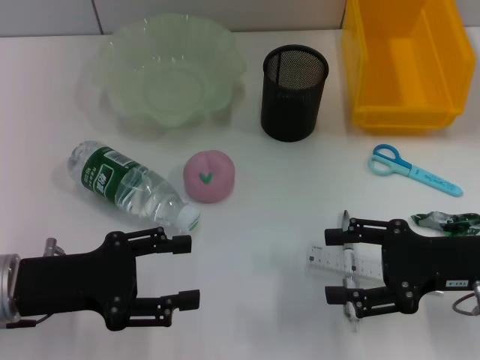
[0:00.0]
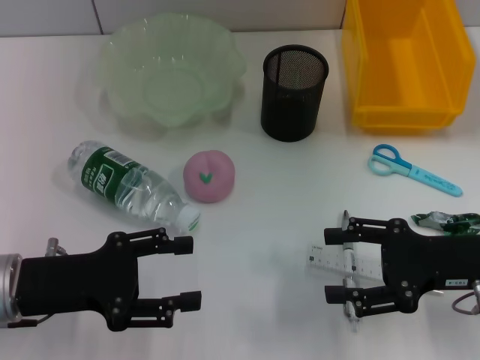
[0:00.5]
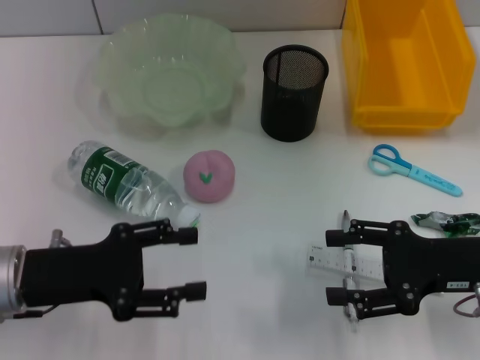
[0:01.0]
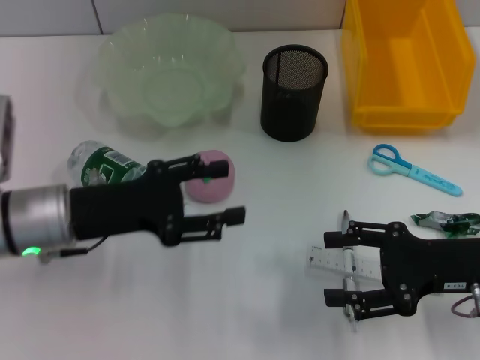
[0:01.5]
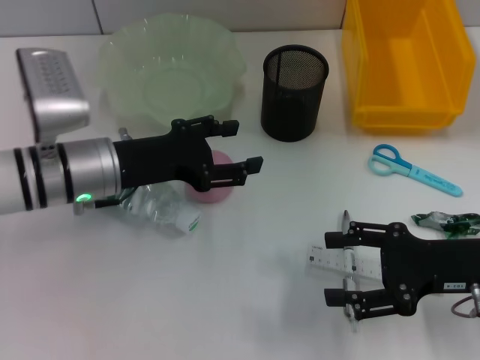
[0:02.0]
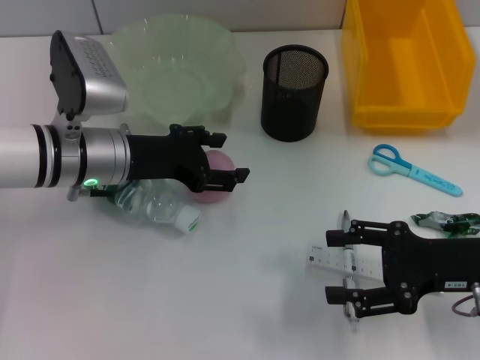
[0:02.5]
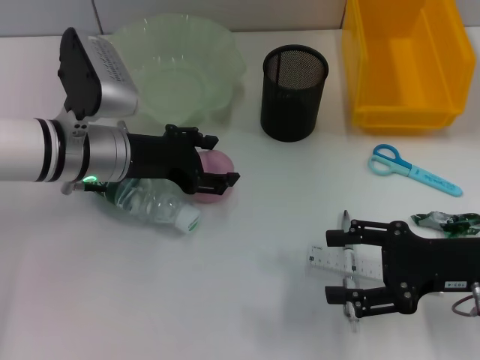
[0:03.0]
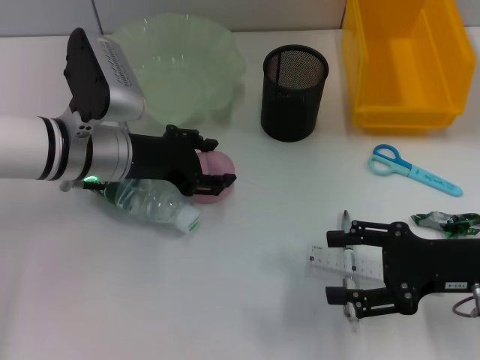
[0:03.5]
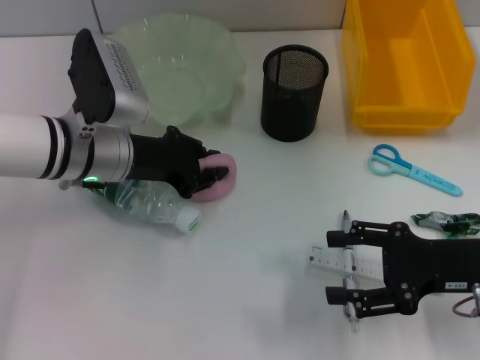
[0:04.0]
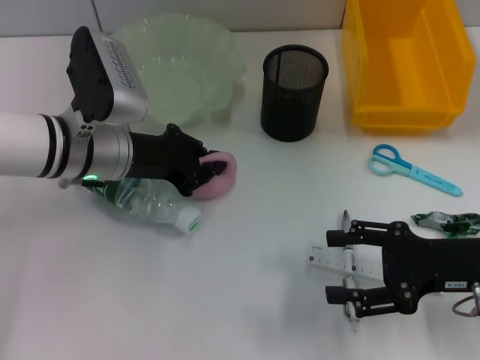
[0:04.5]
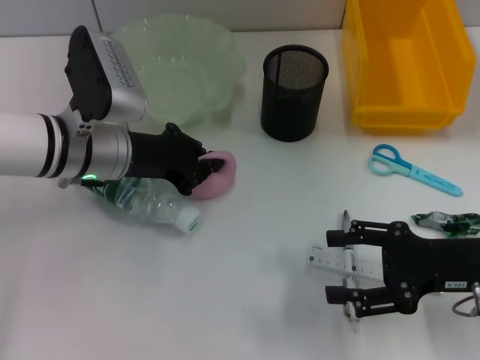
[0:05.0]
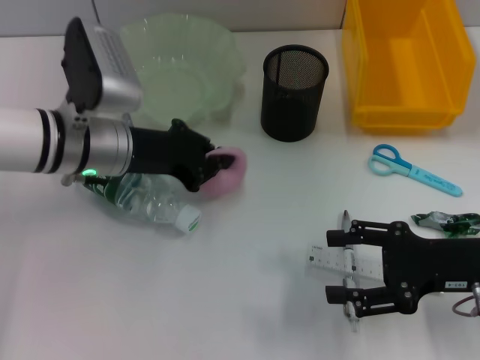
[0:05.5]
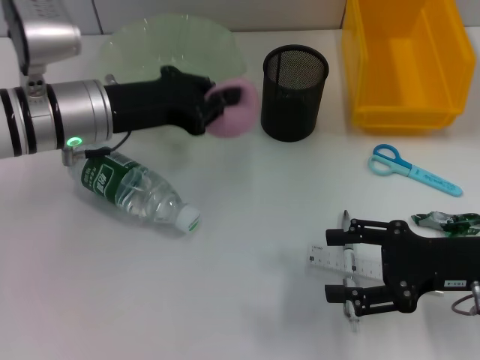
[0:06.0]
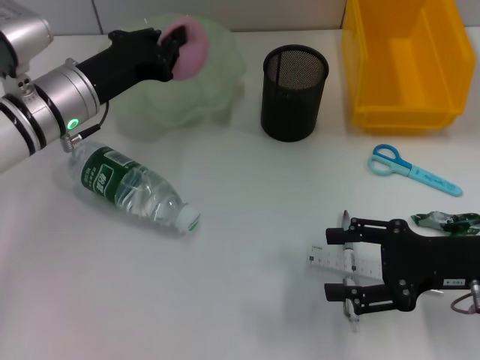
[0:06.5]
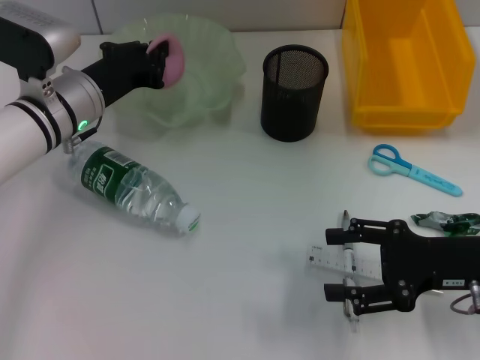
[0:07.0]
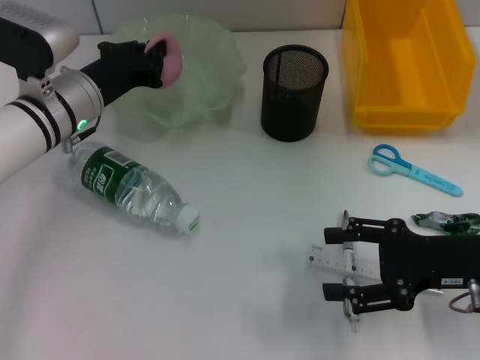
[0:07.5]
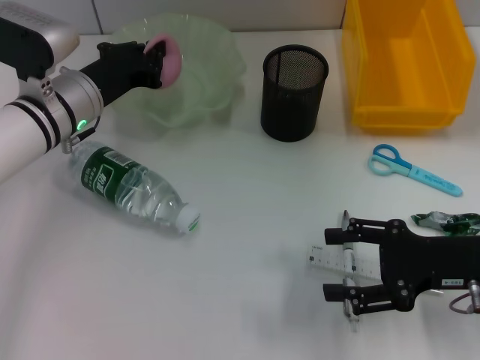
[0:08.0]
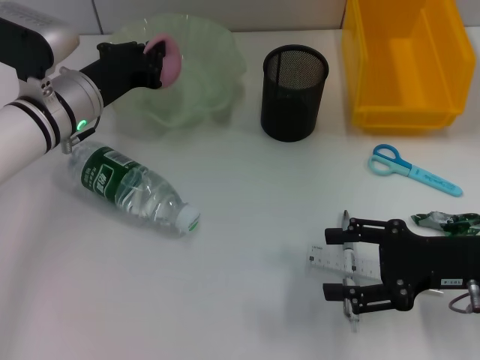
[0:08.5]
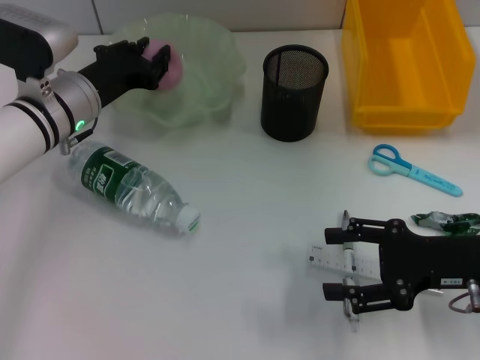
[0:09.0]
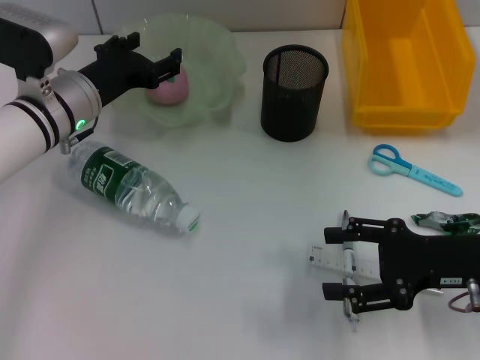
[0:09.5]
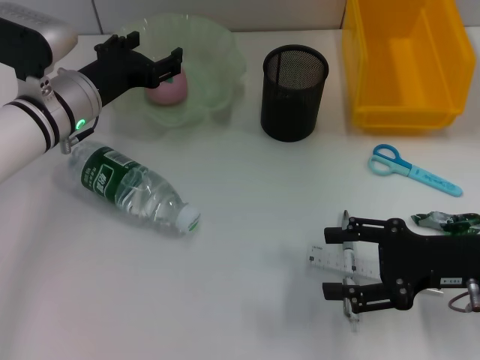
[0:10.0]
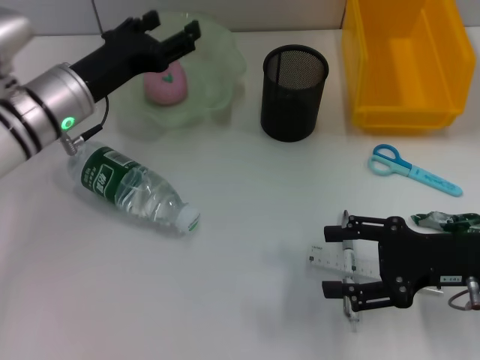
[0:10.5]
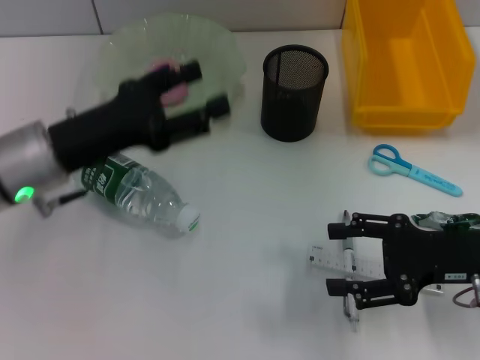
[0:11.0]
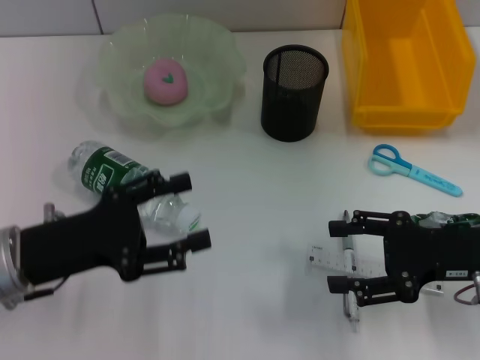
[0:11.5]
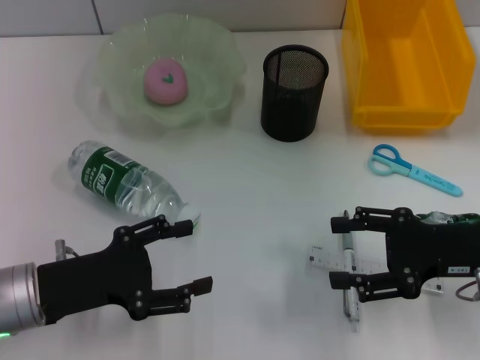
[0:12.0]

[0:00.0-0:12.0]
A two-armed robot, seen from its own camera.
Step, 0:00.0 to 0:04.0: Grab the peach with the left hand.
Step, 0:04.5 to 0:09.5: Place the peach into the fruit bowl with the left hand.
0:00.0 to 0:02.0: The left gripper shifts approximately 15 cm forward and to the right.
0:04.0 to 0:06.0: The left gripper closes.
0:06.0 to 0:08.0: The left gripper ends up some 5 cm from where it was.
0:08.0 to 0:10.0: The left gripper opens up.
0:10.0 to 0:12.0: The left gripper goes roughly 20 cm backward.

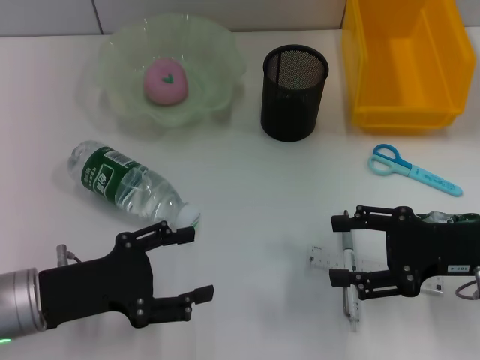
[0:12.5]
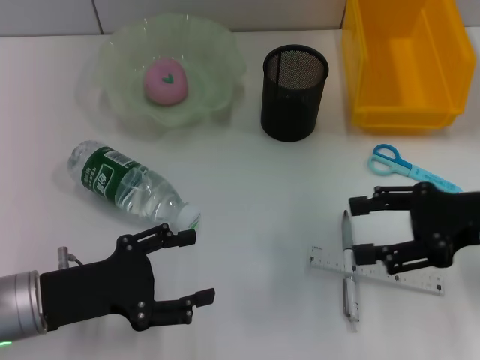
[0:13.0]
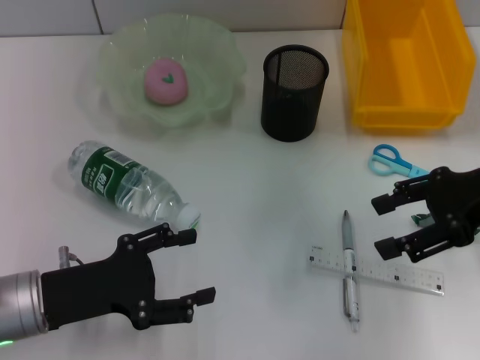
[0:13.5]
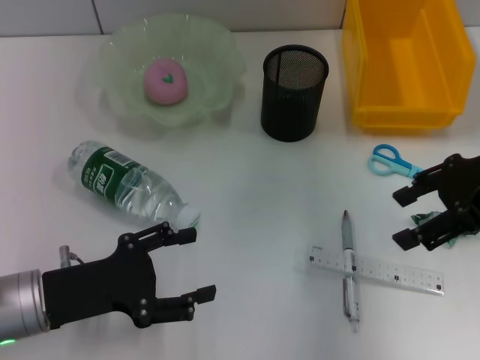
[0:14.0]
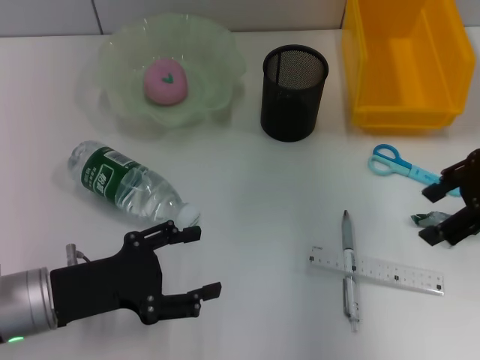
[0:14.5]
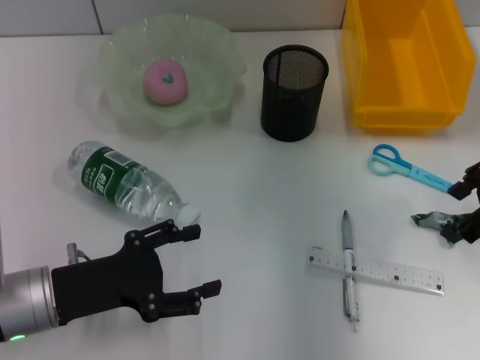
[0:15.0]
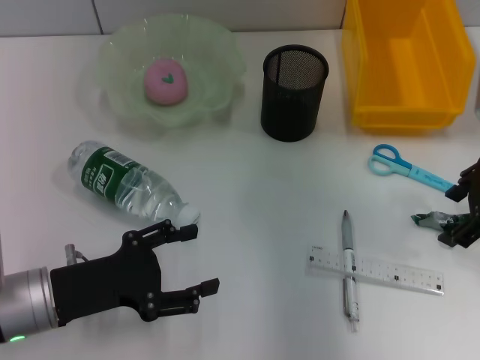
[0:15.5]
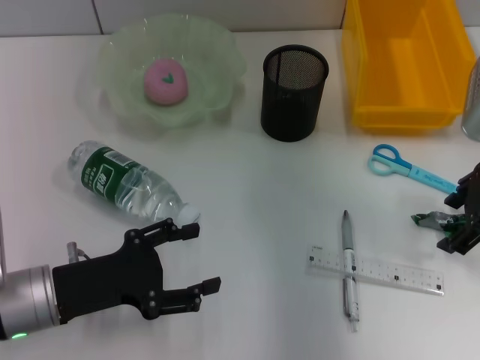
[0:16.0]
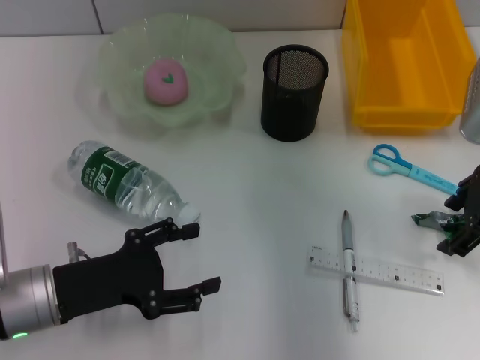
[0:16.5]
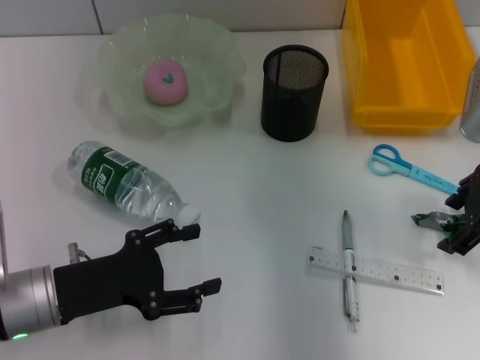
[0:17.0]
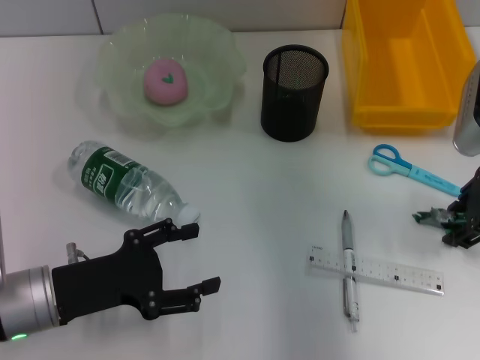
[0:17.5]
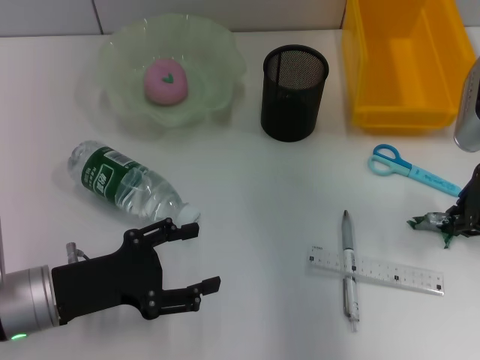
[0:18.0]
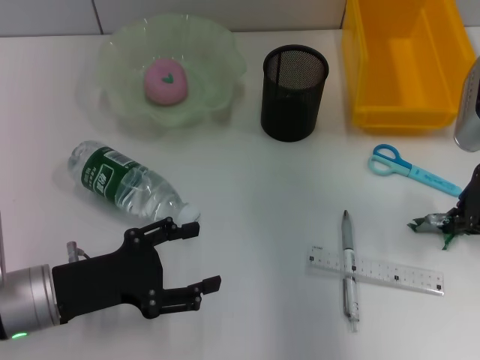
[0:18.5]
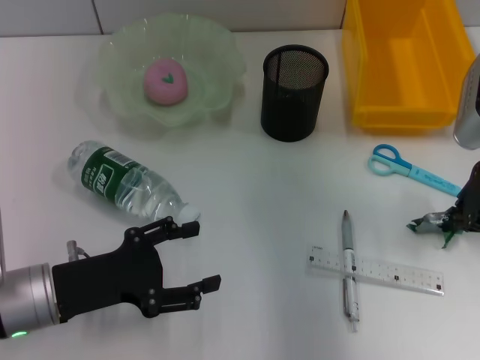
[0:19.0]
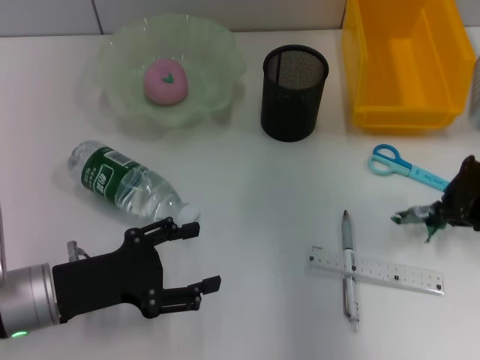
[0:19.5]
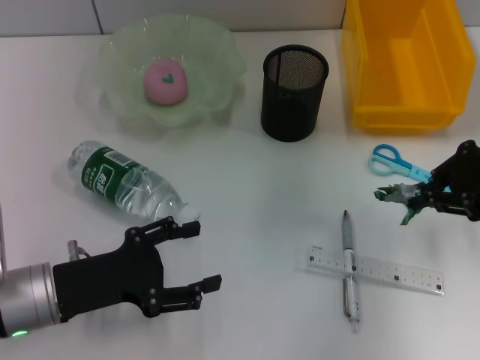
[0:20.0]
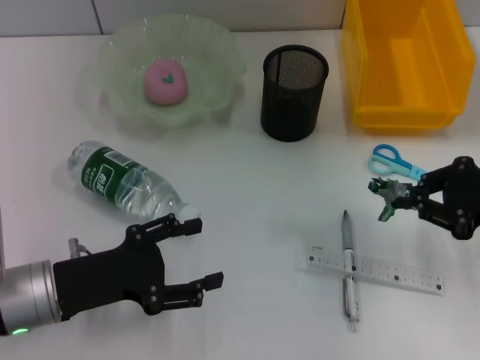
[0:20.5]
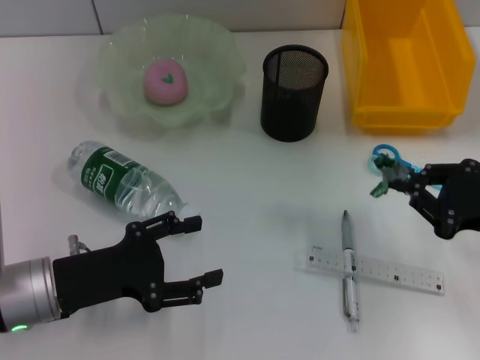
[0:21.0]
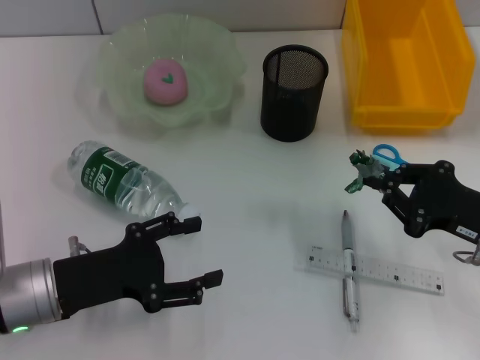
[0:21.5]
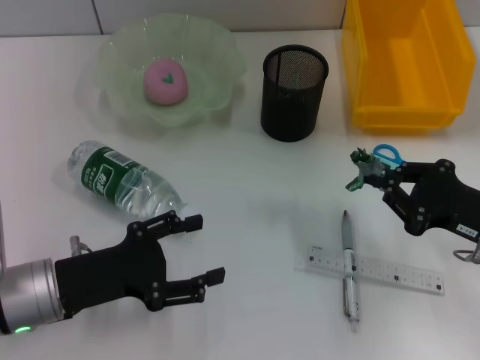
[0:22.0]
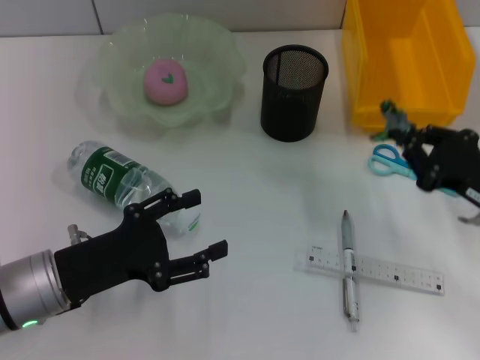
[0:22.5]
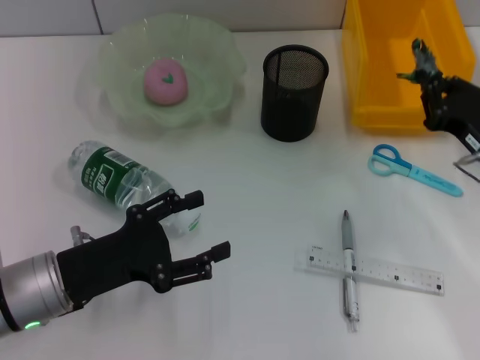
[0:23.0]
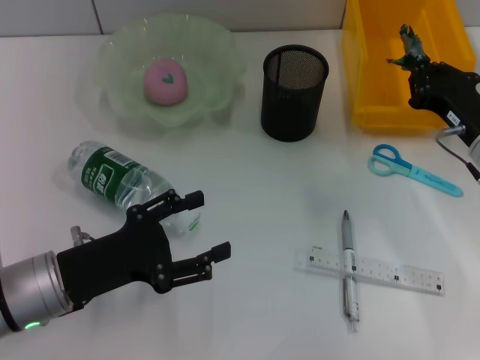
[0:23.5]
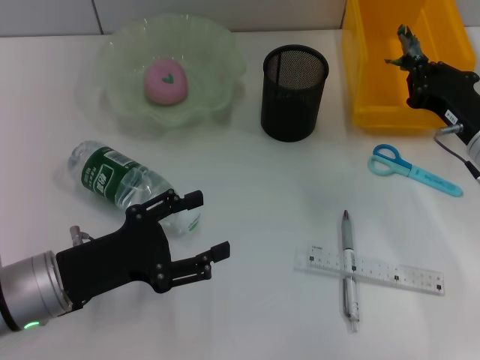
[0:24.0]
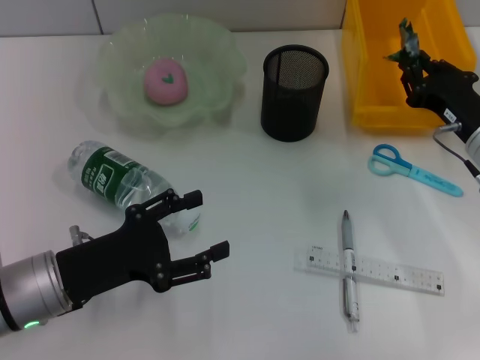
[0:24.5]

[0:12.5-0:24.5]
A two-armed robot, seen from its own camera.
Step, 0:12.5 to 0:18.5: Grab the plastic with the right hand.
0:12.5 to 0:14.5: The right gripper travels upward and forward by roughly 15 cm.
0:14.5 to 0:16.5: The grippers stay close to where they were, moving slightly.
0:16.5 to 0:18.5: The right gripper closes up.
0:18.5 to 0:20.5: The right gripper goes roughly 10 cm backward and to the right.
0:20.5 to 0:22.5: The right gripper is displaced downward by roughly 5 cm.
0:22.5 to 0:24.5: The right gripper moves forward, about 10 cm.

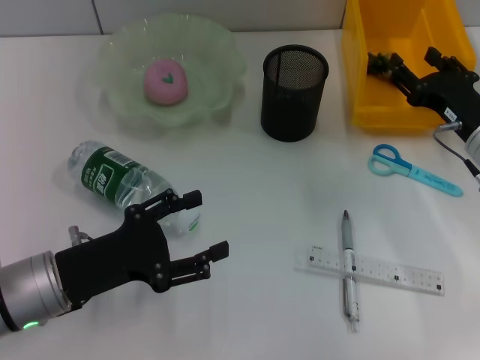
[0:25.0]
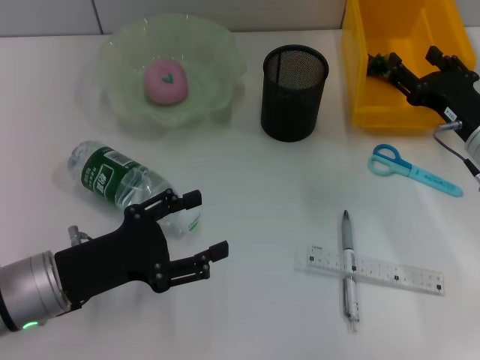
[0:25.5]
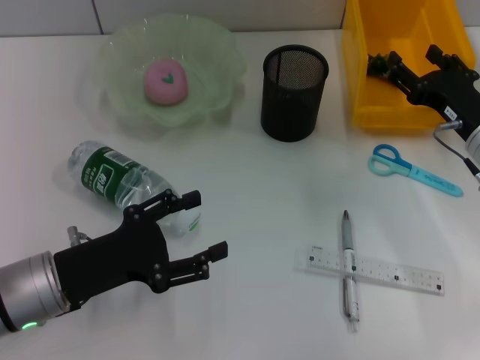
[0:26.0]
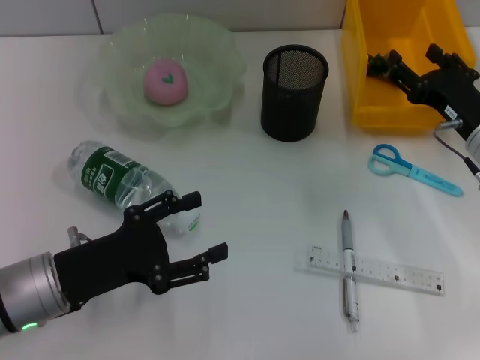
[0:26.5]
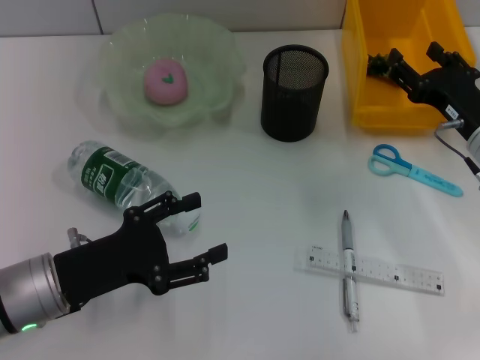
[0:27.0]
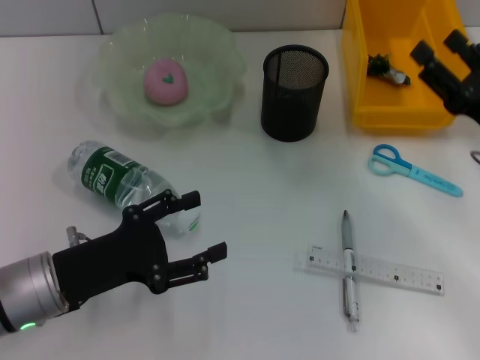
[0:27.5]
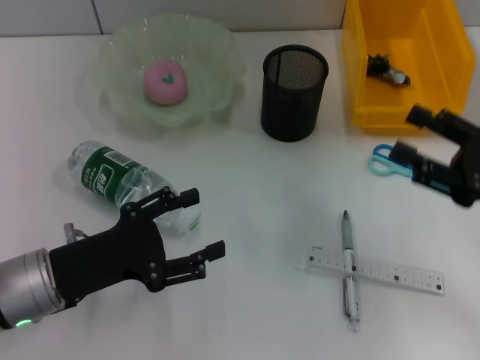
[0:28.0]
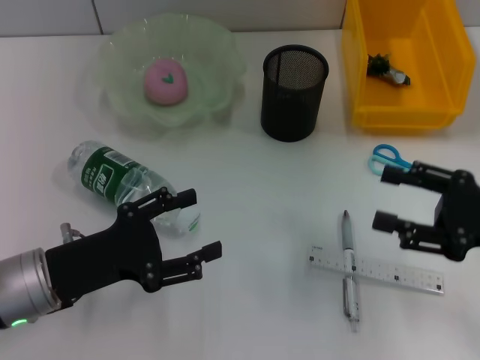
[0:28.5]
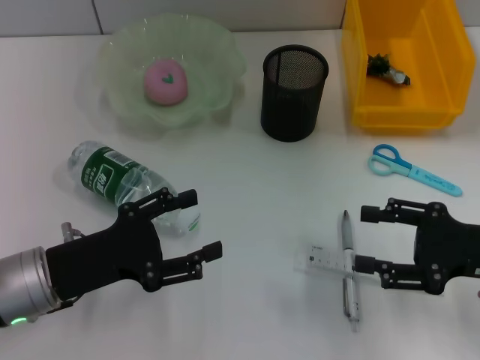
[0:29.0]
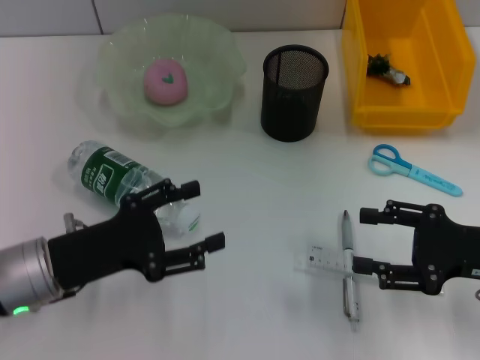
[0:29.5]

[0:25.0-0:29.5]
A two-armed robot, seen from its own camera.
0:25.0 to 0:27.0: Both grippers stay about where they are.
0:27.0 to 0:29.5: The right gripper heads backward, covering approximately 10 cm.
